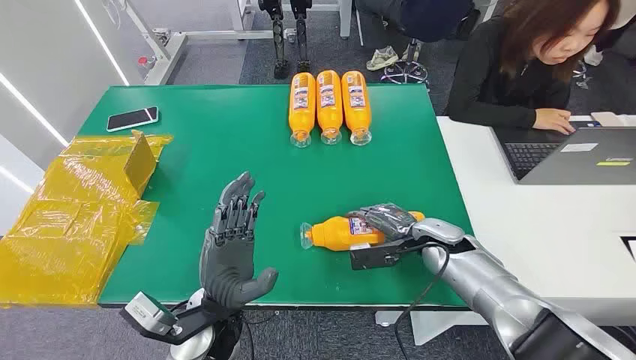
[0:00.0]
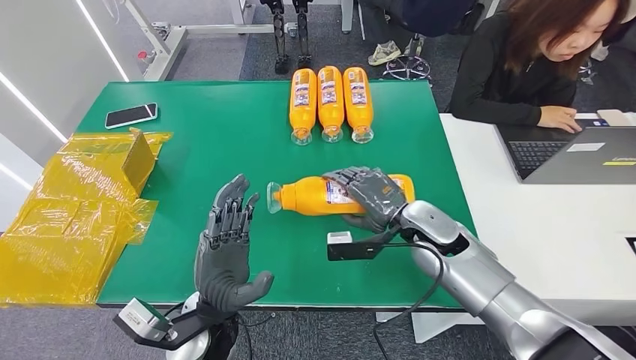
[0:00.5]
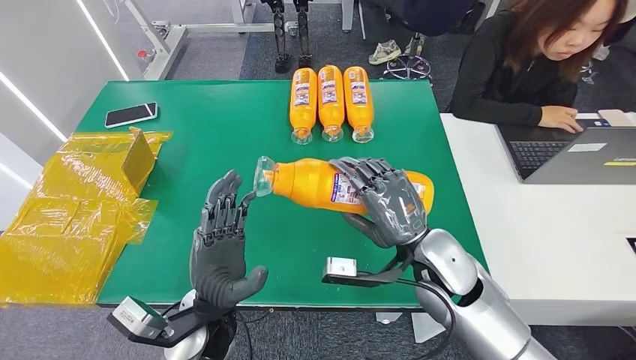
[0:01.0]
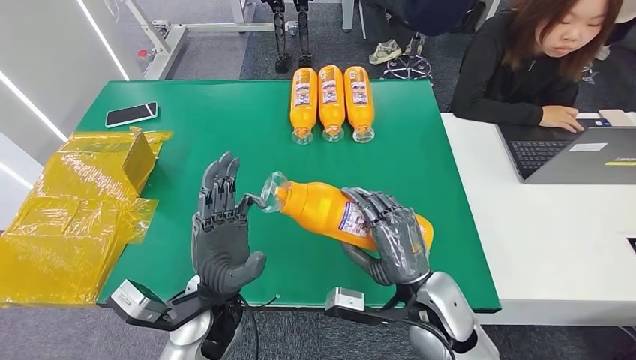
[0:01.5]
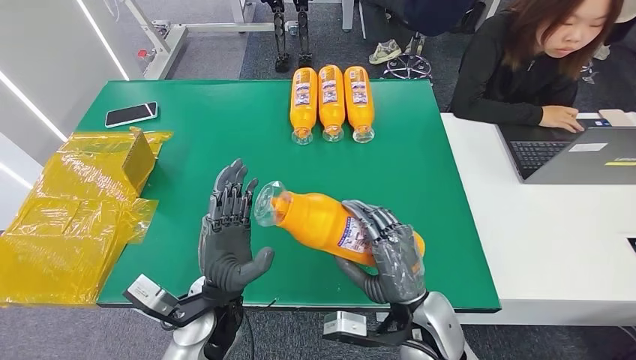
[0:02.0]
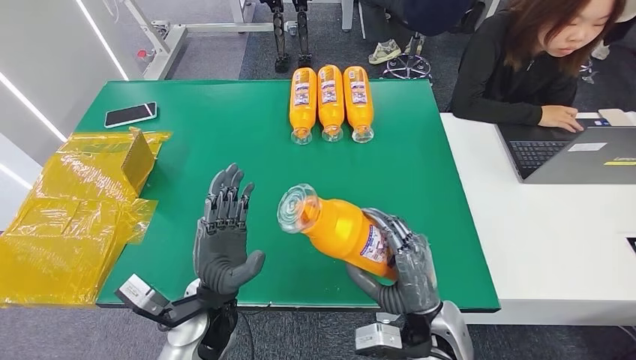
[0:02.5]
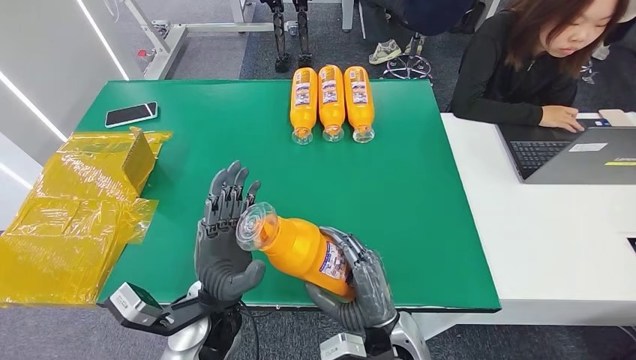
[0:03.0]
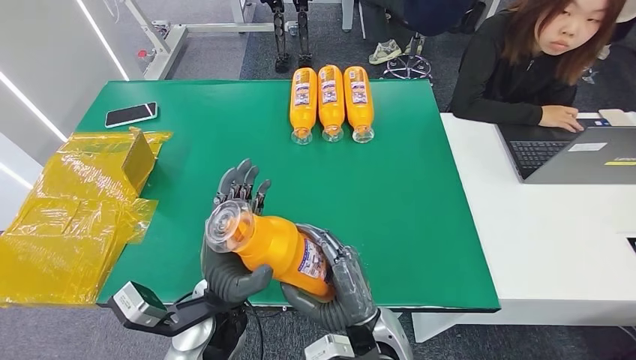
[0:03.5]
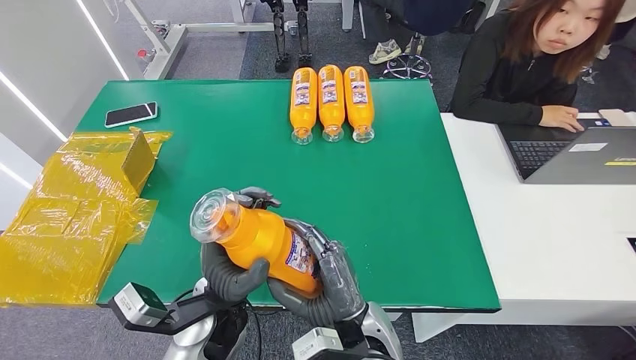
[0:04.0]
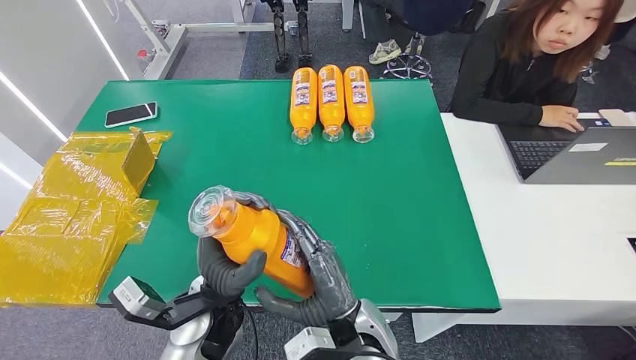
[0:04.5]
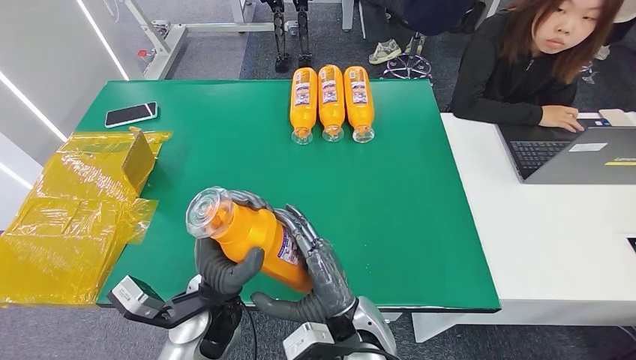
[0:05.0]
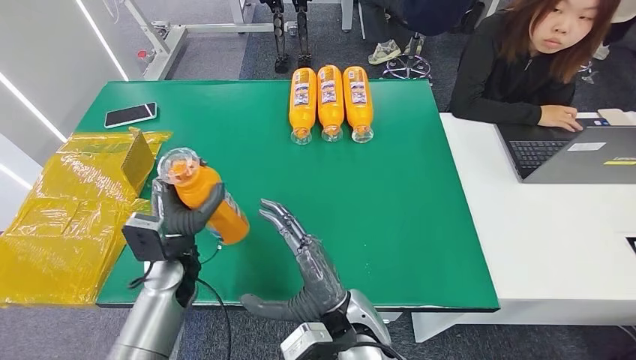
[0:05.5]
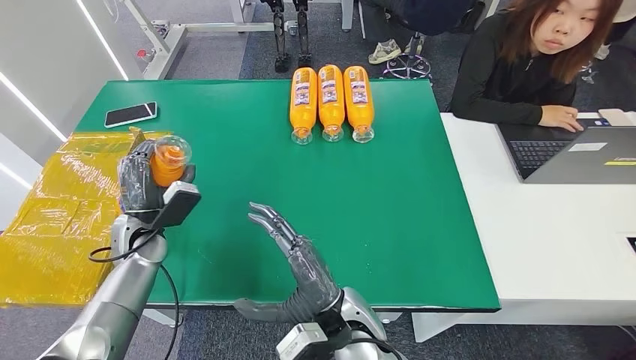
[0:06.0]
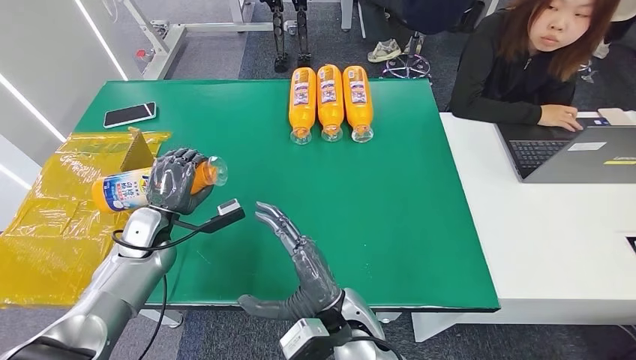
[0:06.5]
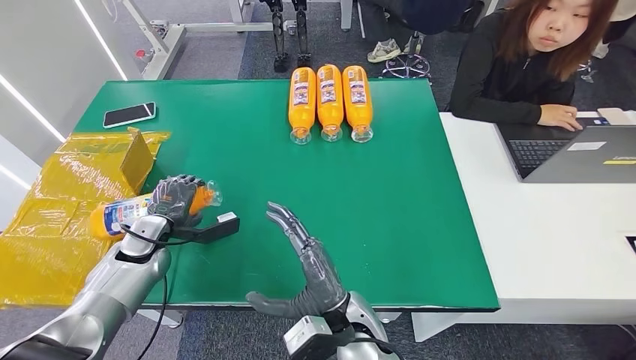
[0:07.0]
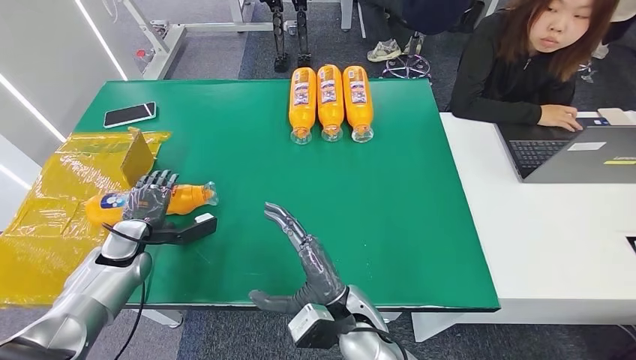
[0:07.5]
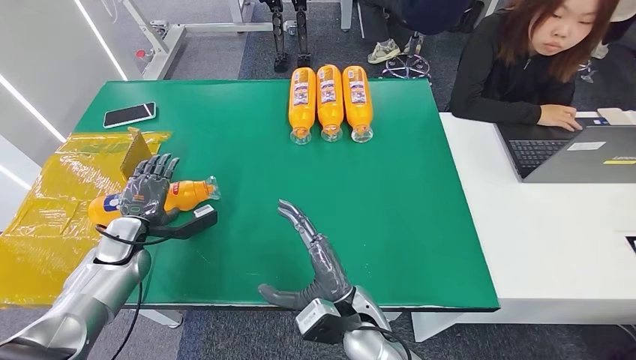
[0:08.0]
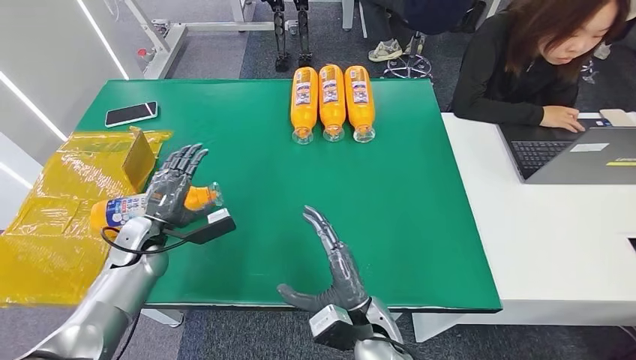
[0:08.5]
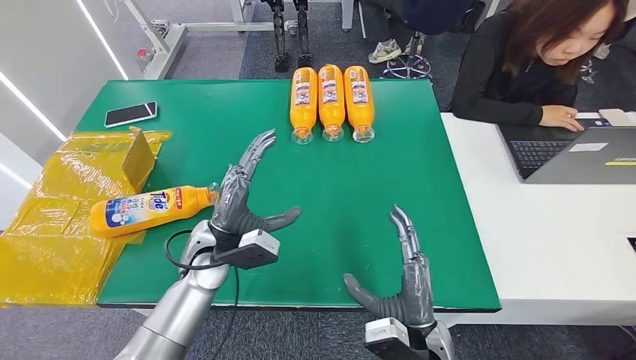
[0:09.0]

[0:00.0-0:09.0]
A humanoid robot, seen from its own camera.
Step, 0:00.0 to 0:02.5: Pick up the bottle from the table.
Step, 0:03.0 to 0:09.0: Turn the bottle to the front side.
0:02.0 to 0:04.5: The right hand moves to the left, roughly 10 cm.
0:04.5 to 0:07.0: The left hand travels to the left and forward by about 25 cm.
0:07.0 to 0:09.0: The right hand is displaced to the right by roughly 10 cm. Meanwhile the left hand heads to the right, covering about 20 cm.
